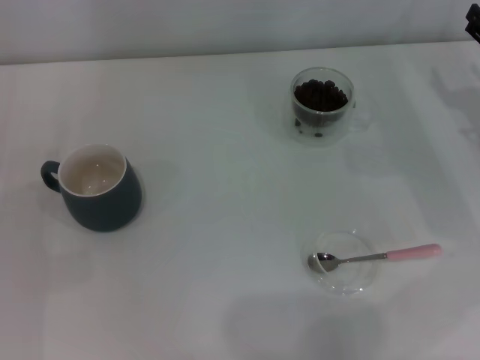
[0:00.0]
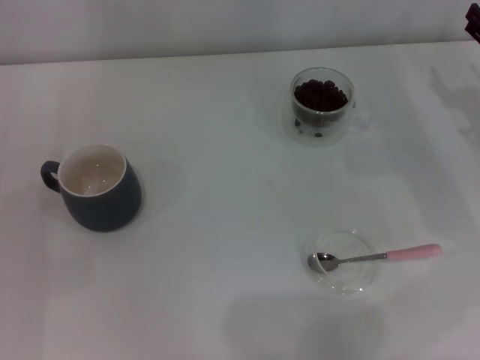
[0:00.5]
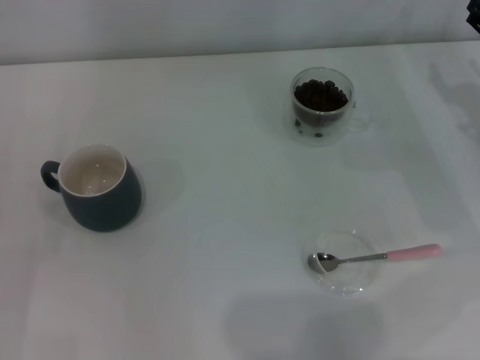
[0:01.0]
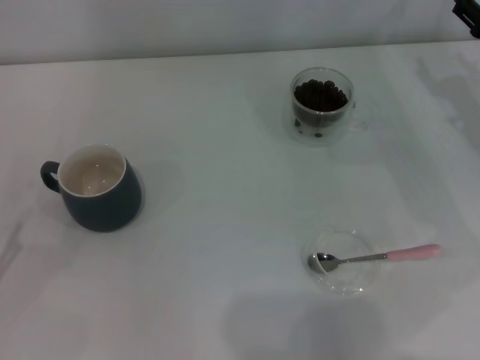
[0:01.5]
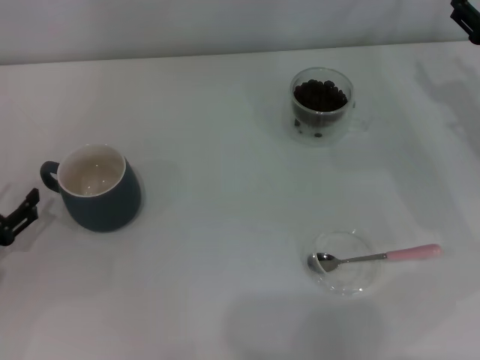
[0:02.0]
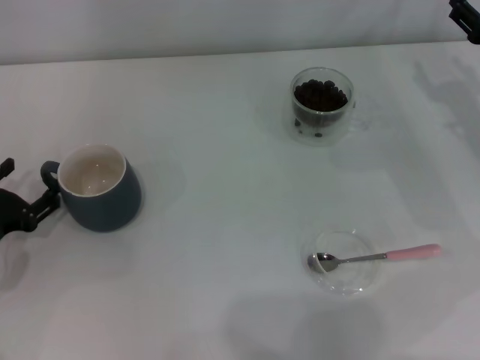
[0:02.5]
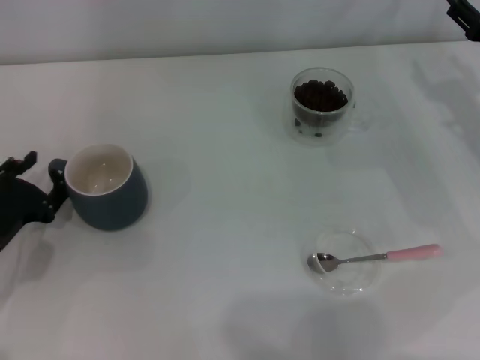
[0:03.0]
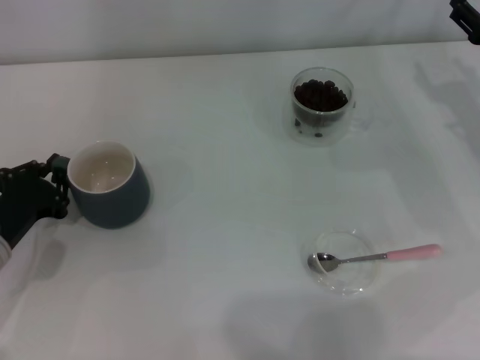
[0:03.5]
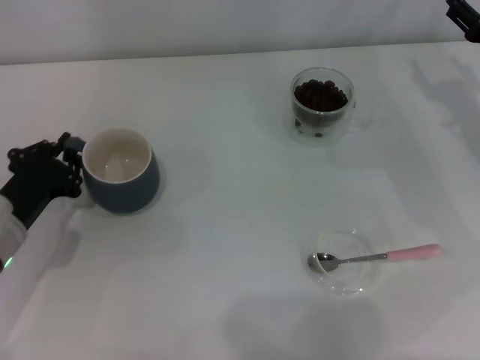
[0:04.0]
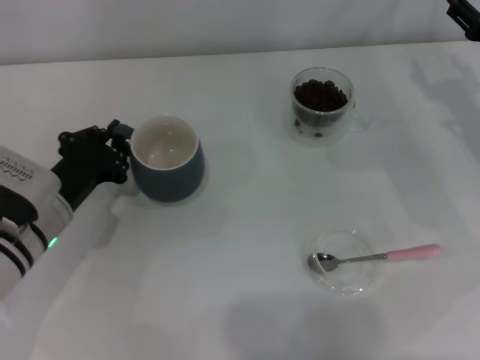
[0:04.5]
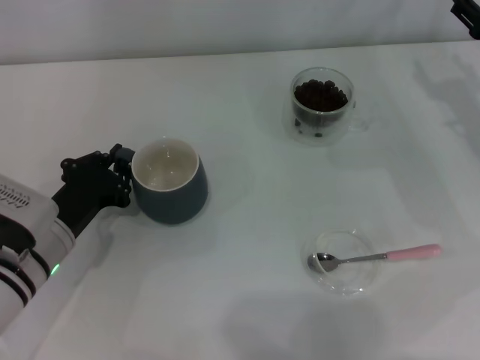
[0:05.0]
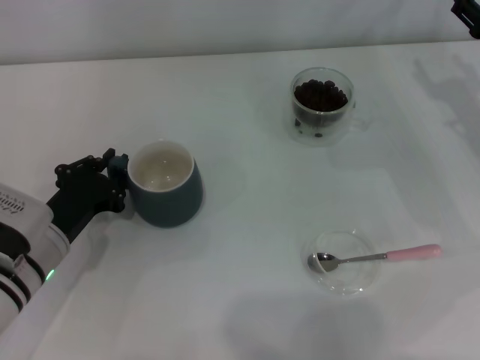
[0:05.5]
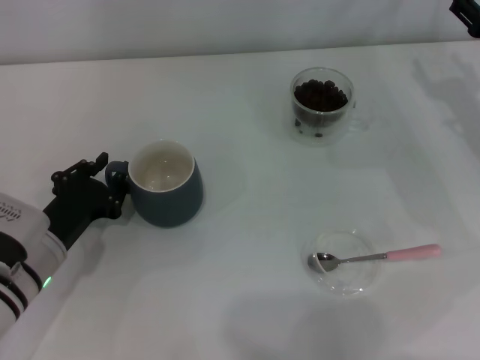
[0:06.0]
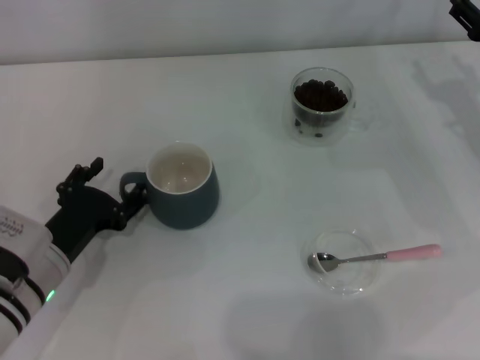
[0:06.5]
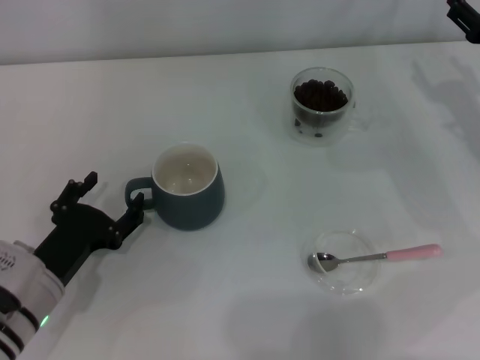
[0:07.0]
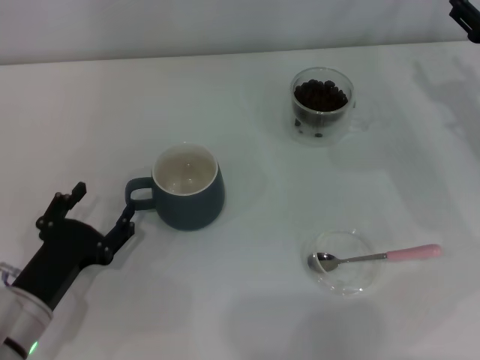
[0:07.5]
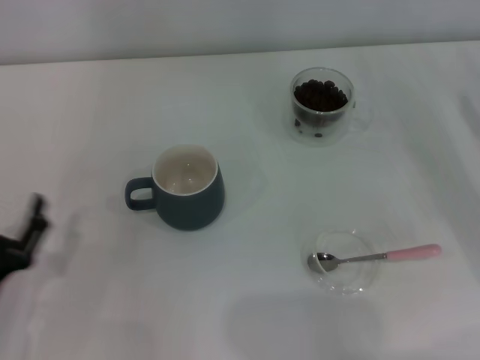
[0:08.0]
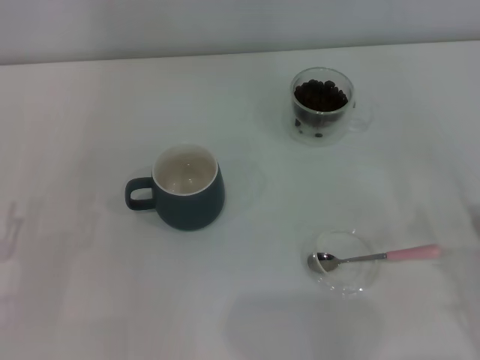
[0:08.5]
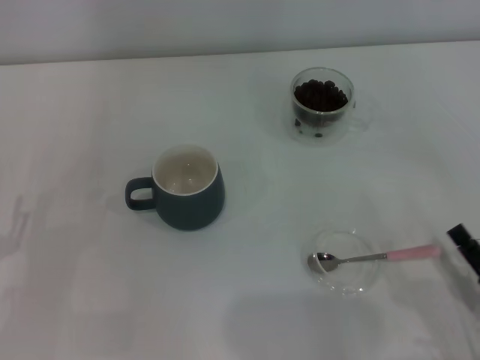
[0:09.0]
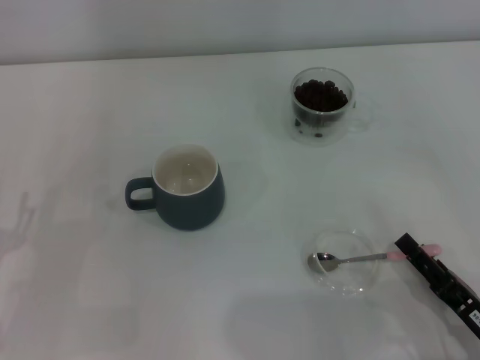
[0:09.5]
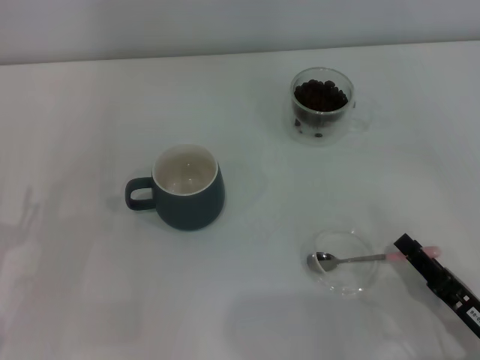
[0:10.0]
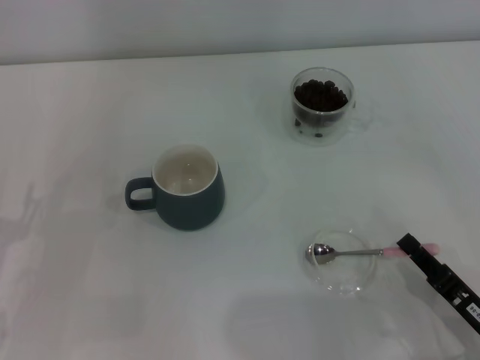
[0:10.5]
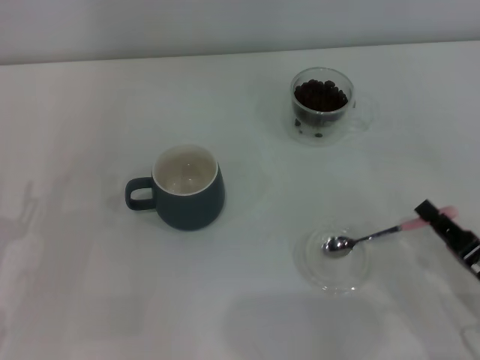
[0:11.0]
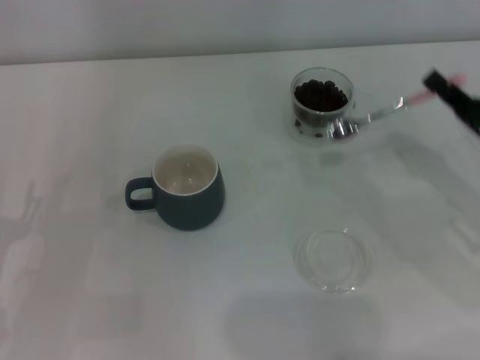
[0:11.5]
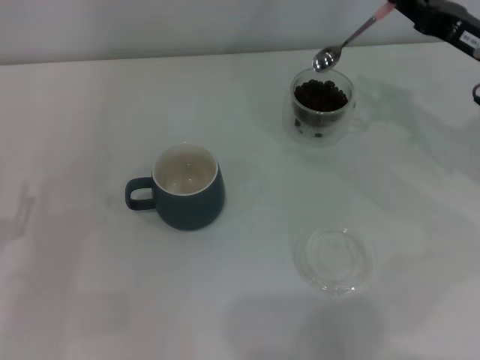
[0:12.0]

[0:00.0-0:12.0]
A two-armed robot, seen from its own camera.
Task of the whole recording: Use a pink spoon to take out the coffee beans from the glass and pour them into the gray cup.
Step, 0:00.0 to 0:07.5: Move the cup to the center of view with the left gripper.
Step, 0:08.0 to 0:11.0: Pick up the spoon with the right gripper.
0:00.0 to 0:02.0: The left gripper goes backward and returns, some 10 cm each way.
0:02.0 to 0:04.0: The left gripper shifts approximately 10 cm to the right, and closes.
0:04.0 to 0:06.0: The grippers stay close to where they were, moving slightly.
0:06.0 to 0:08.0: The two grippers go about 10 cm backward. The left gripper opens its fingers.
0:08.0 to 0:10.0: The right gripper travels backward, to the left and downward by some 20 cm, and closes its fingers; the left gripper moves about 5 cm.
0:10.0 to 0:12.0: The right gripper heads forward and upward, covering some 30 cm, and closes up.

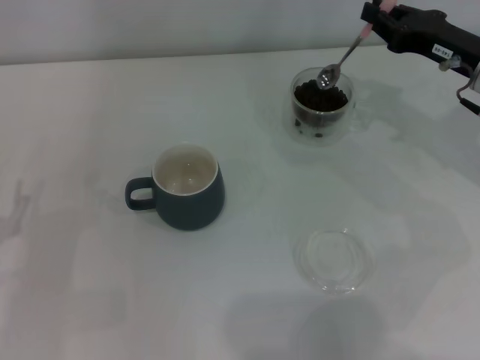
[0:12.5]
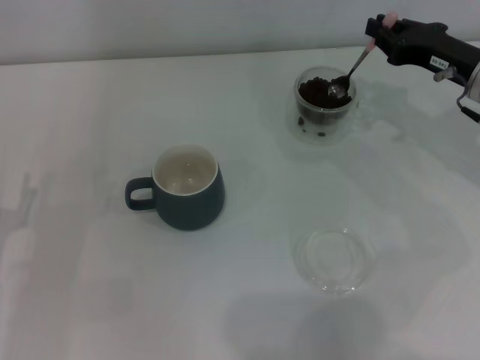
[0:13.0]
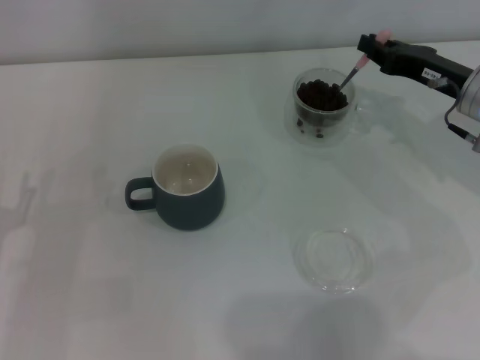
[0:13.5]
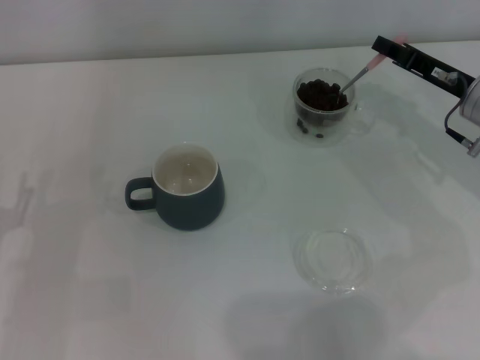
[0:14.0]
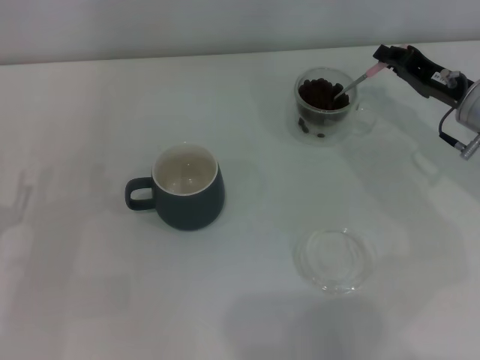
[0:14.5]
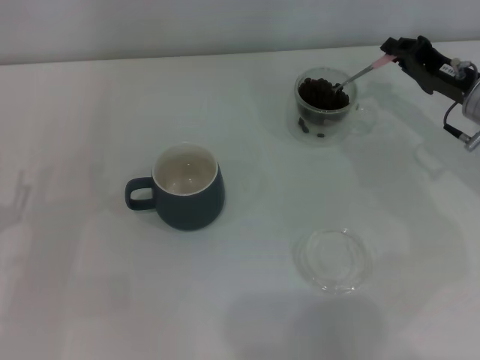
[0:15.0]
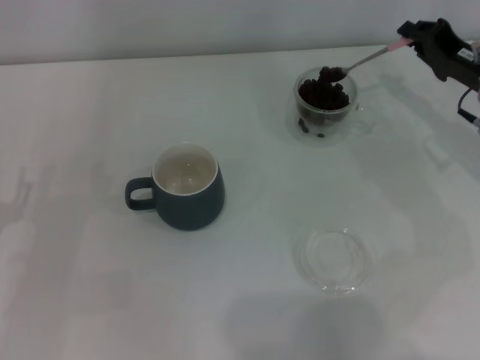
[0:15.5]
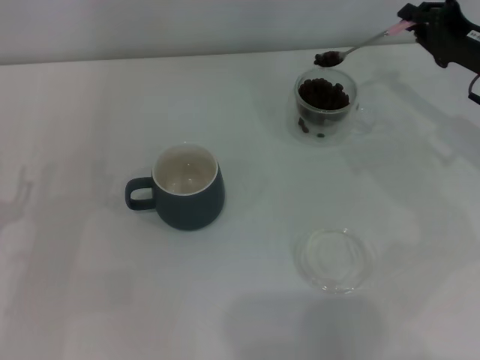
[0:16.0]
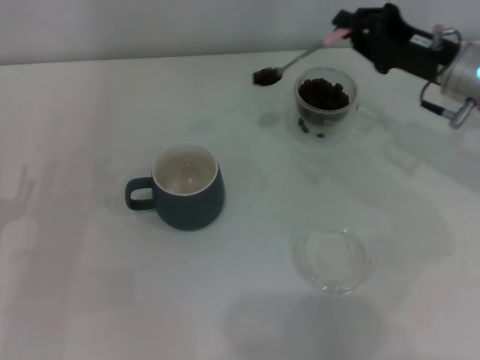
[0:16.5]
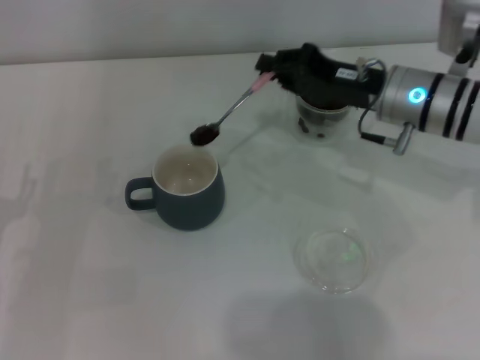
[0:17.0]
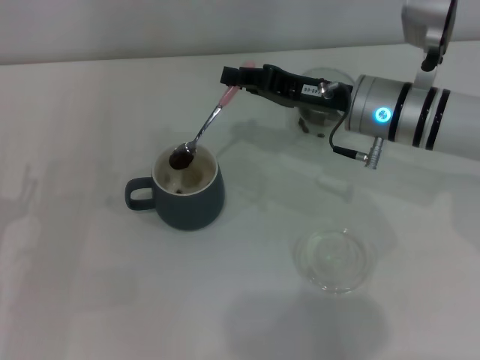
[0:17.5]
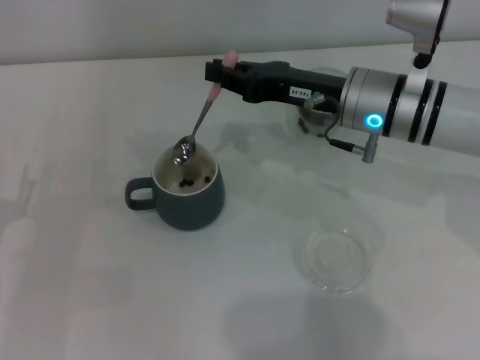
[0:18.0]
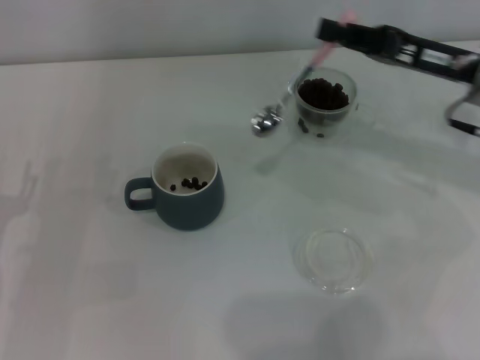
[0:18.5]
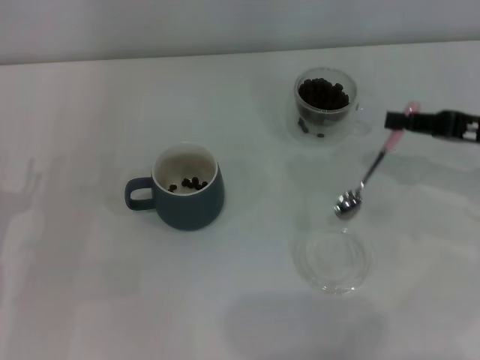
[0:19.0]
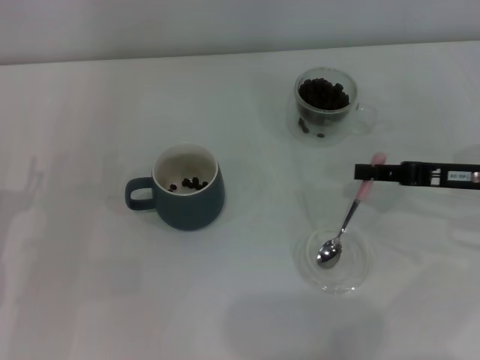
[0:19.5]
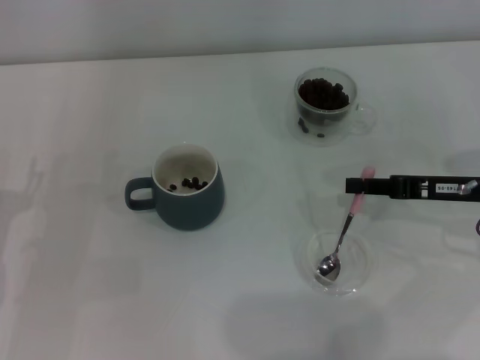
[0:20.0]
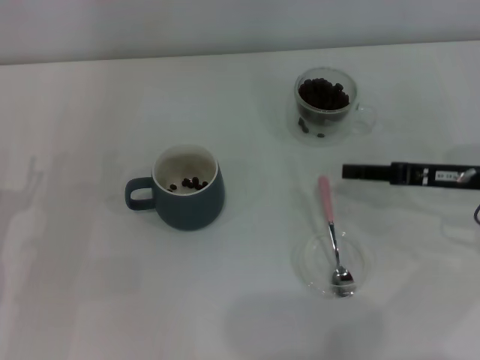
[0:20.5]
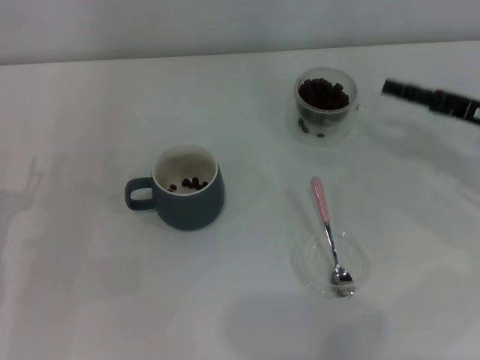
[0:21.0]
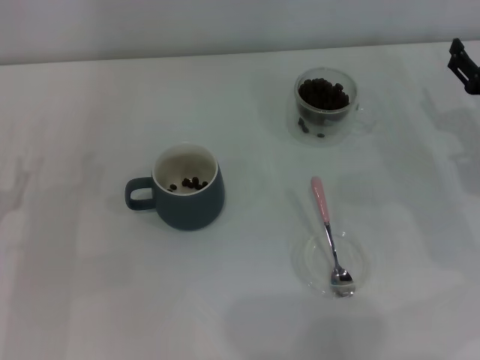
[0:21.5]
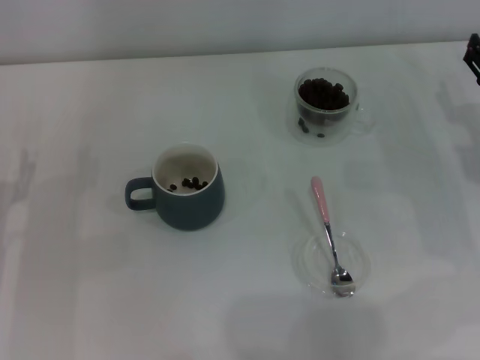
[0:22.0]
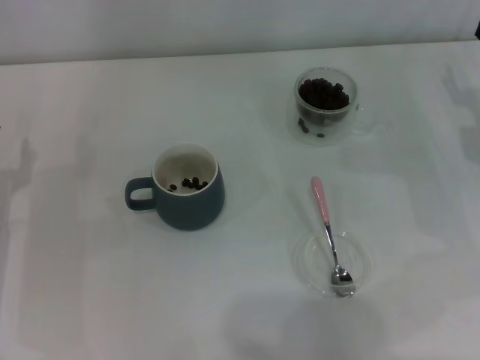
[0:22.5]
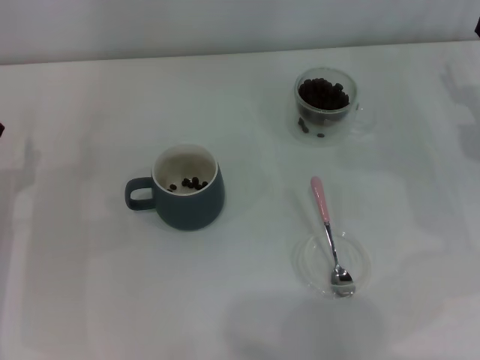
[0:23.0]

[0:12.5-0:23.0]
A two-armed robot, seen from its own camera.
Task of the whole recording: Use a pink spoon to take out the coffee beans from the glass and pour them into the gray cup.
Step, 0:12.5 to 0:17.5: Scoop a spoonful of beans into the cup with the right gripper.
Step, 0:18.0 to 0:20.0: Place the spoon back in its original place with the right gripper.
0:16.5 to 0:19.0: The right gripper travels to the right and backward by approximately 10 cm.
0:19.0 to 0:21.0: The right gripper opens up.
